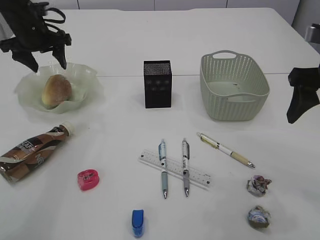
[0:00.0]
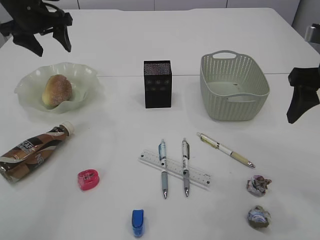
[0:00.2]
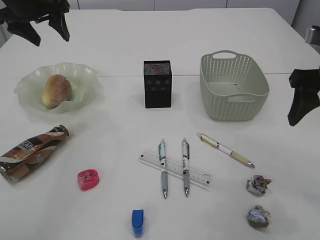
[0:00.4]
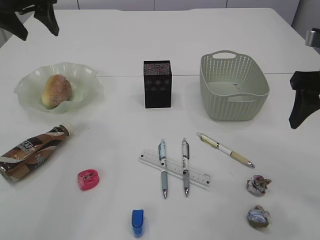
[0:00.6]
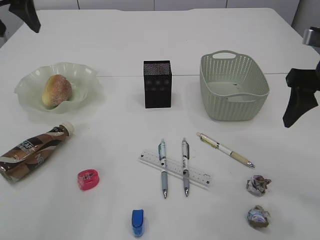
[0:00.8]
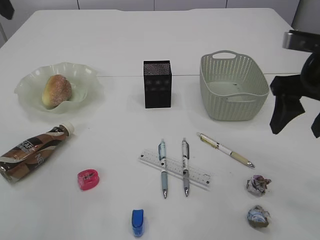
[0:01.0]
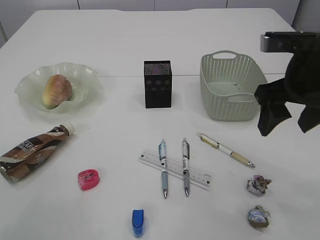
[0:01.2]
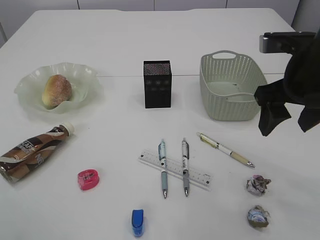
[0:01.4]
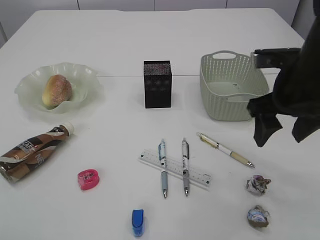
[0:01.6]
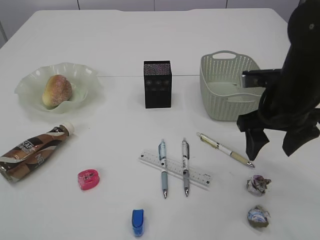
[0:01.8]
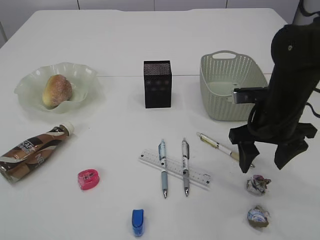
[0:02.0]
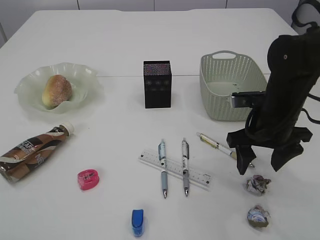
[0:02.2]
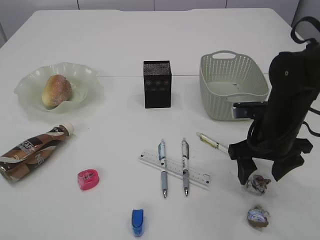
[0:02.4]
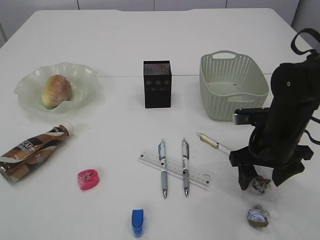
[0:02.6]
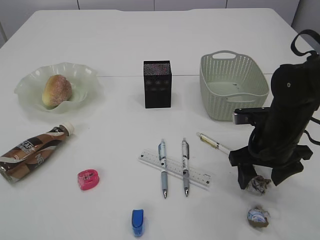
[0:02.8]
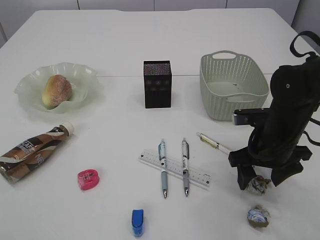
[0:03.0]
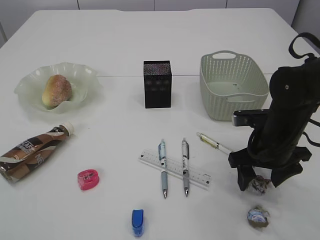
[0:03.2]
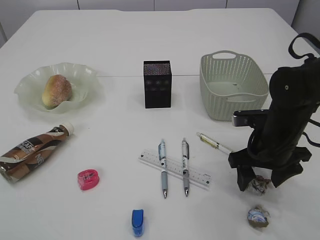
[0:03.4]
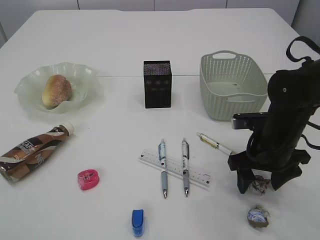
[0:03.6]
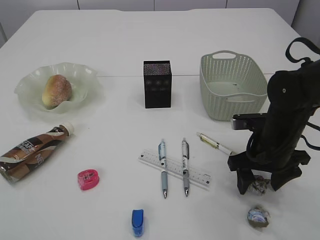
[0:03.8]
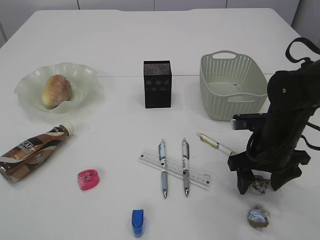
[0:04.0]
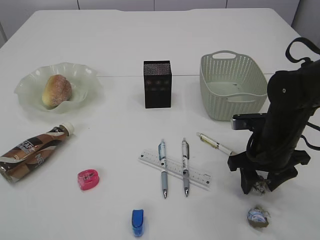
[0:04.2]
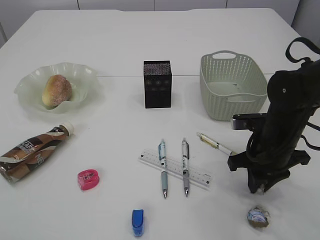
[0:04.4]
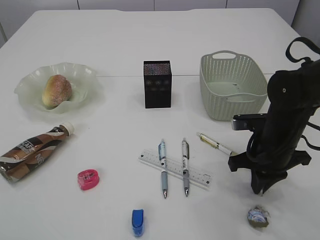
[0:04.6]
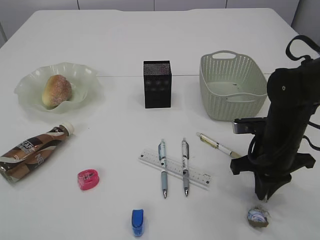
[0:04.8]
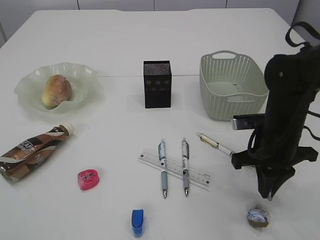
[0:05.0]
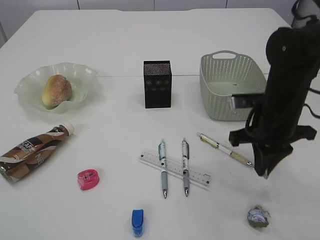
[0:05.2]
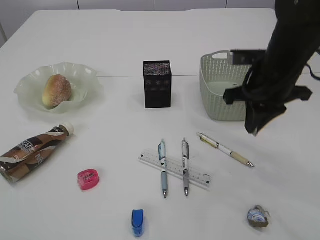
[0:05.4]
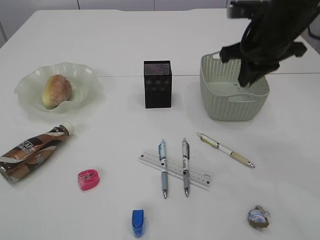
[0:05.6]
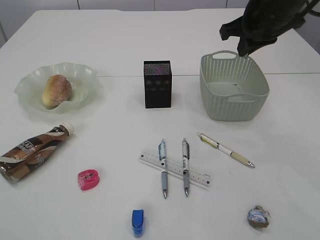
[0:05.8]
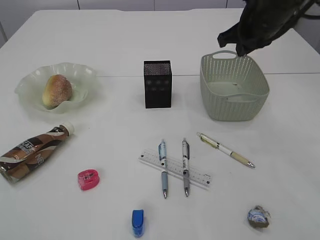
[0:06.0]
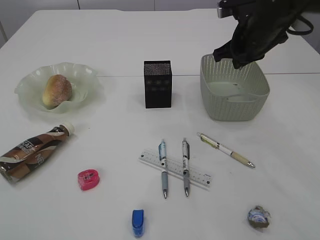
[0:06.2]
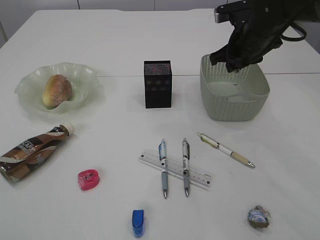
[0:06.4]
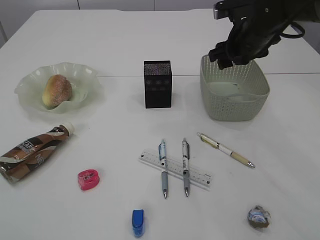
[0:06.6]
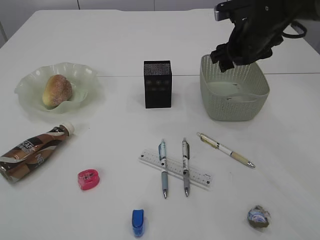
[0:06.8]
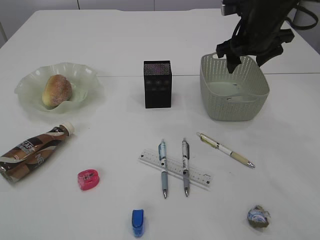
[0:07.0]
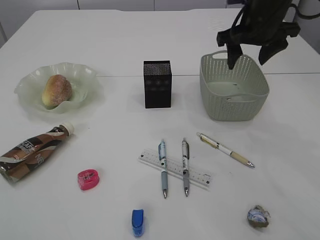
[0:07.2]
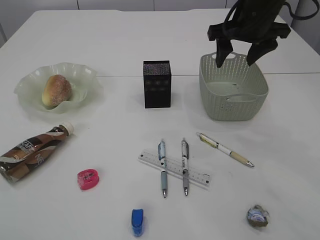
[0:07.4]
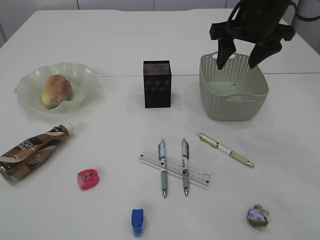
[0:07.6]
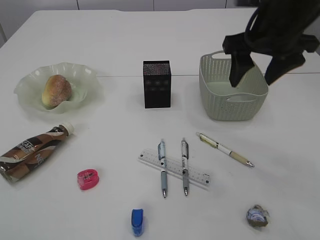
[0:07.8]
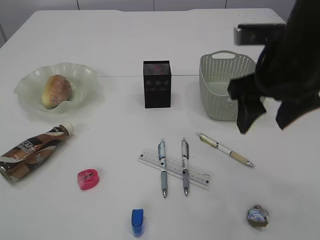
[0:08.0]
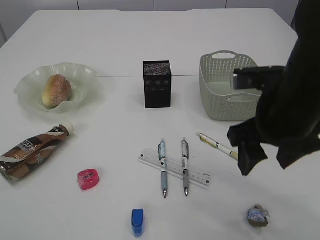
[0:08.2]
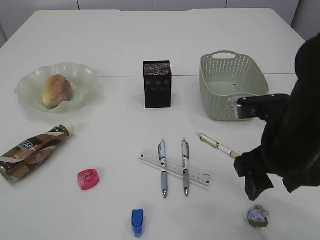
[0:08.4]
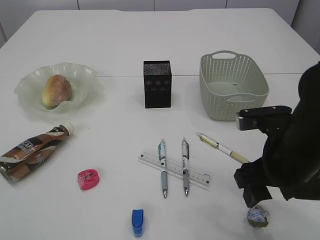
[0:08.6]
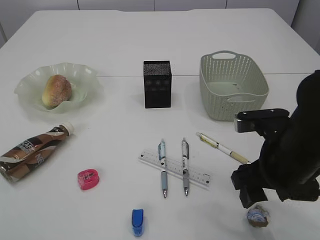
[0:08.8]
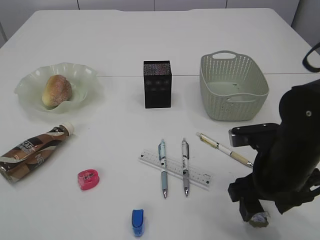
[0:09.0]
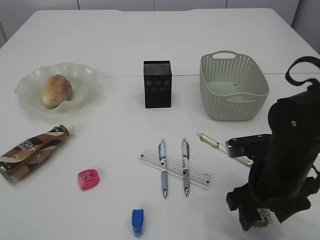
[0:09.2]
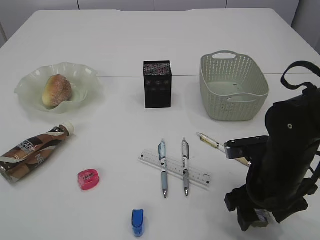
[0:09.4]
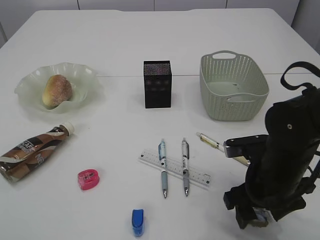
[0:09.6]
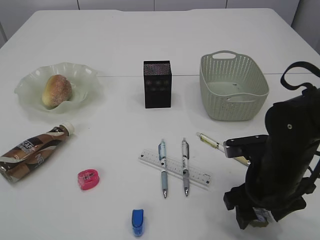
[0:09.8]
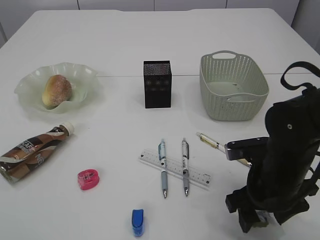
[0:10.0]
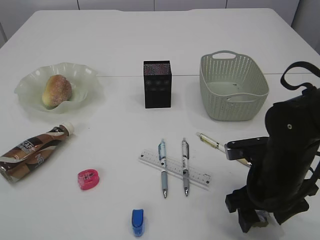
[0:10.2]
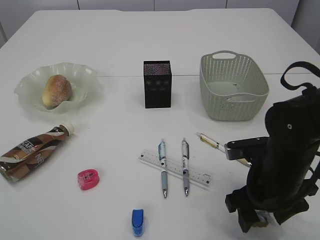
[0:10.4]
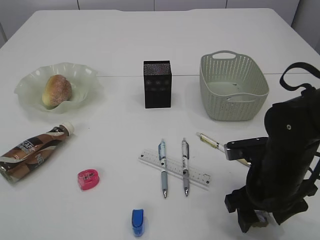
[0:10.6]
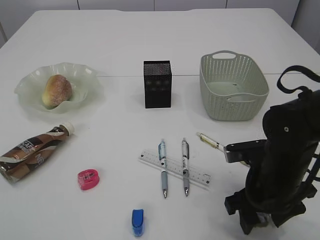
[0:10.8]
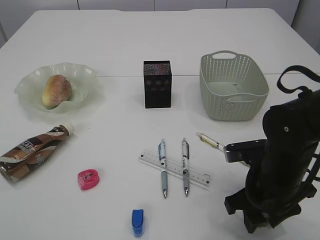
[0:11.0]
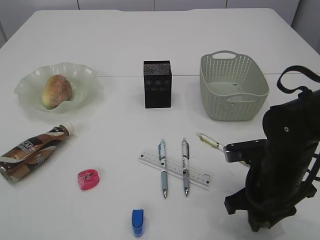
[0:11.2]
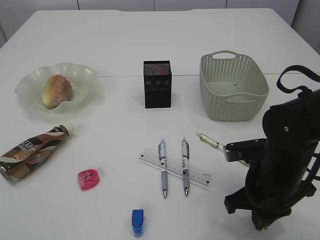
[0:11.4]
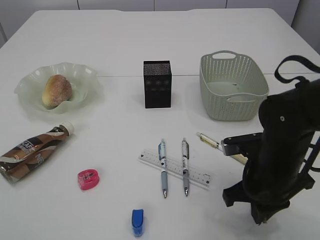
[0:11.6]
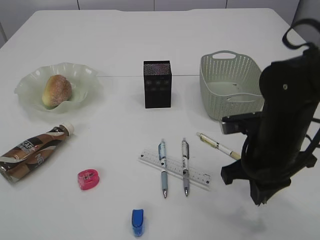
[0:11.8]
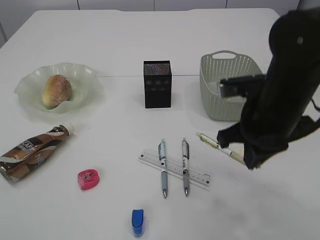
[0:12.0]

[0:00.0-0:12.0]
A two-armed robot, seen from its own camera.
Step, 0:00.8 to 0:05.0: Pick up the waste paper.
Step, 0:05.2 to 0:07.4: Place the waste paper in the basket.
Step, 0:07.6 to 0:11.8: Pick up the waste paper.
0:00.0 to 0:01.6: The right gripper heads to the left, covering approximately 5 cm. Meanwhile the left gripper is displaced backward and upward by approximately 40 cm.
0:01.6 to 0:03.0: The right gripper moves downward, about 10 cm.
0:03.0 to 0:04.4: The right gripper closes its fingers.
0:04.4 to 0:06.0: The right gripper travels upward and forward by approximately 20 cm, and closes up.
0:06.0 to 0:07.6: The right gripper opens.
0:07.6 to 0:09.0: The right gripper travels backward and downward by roughly 25 cm.
0:09.0 to 0:10.4: The grippers stay close to where they were, moving slightly.
0:10.4 to 0:12.0: The right gripper moves upward, approximately 10 cm, and closes.

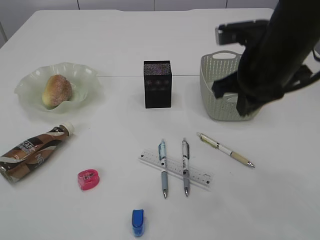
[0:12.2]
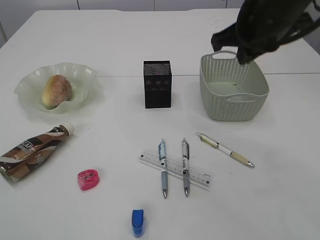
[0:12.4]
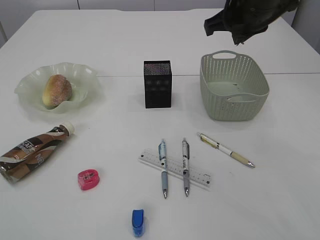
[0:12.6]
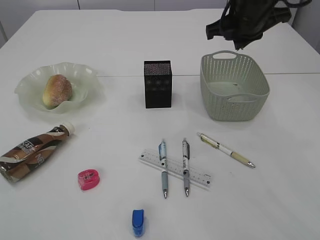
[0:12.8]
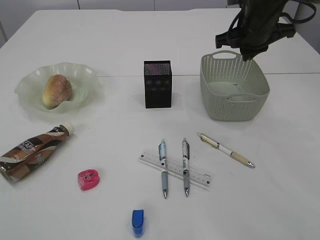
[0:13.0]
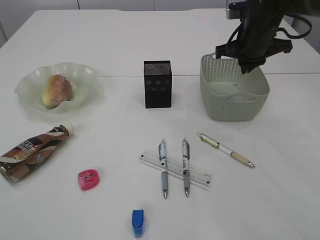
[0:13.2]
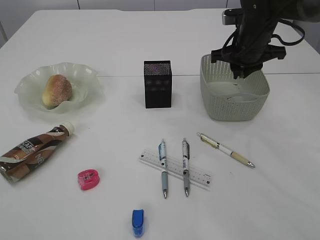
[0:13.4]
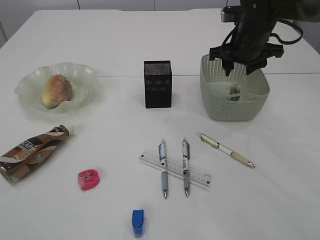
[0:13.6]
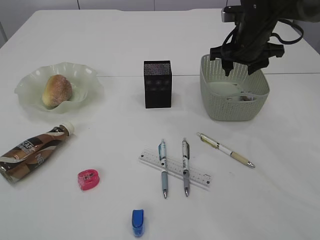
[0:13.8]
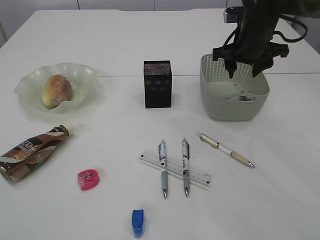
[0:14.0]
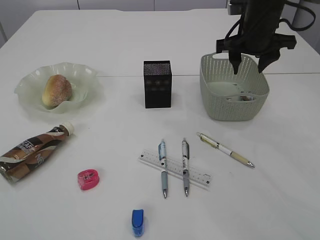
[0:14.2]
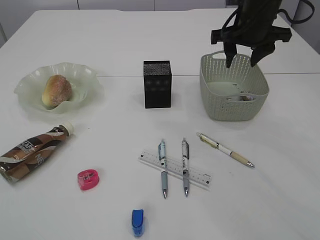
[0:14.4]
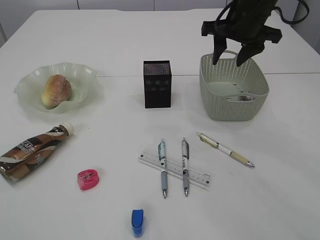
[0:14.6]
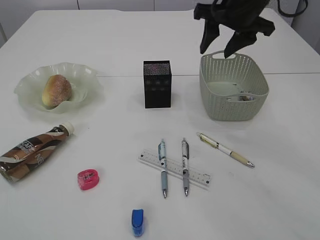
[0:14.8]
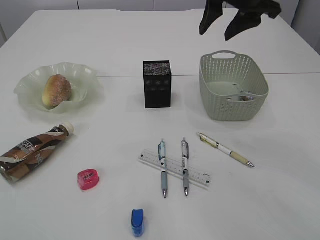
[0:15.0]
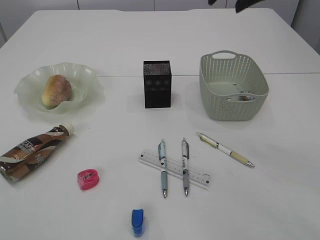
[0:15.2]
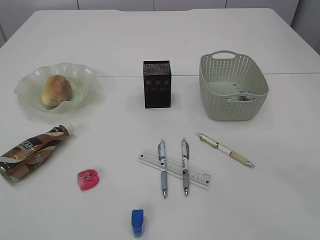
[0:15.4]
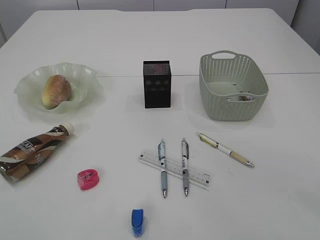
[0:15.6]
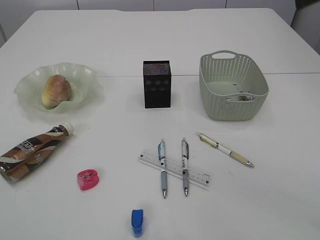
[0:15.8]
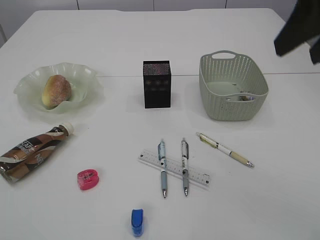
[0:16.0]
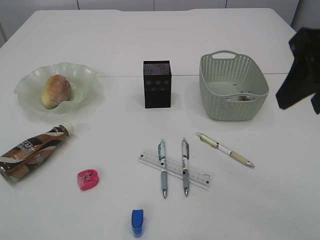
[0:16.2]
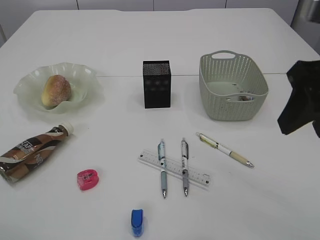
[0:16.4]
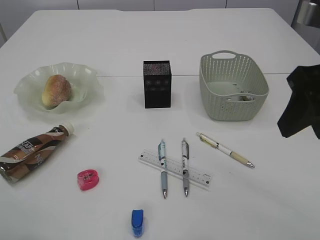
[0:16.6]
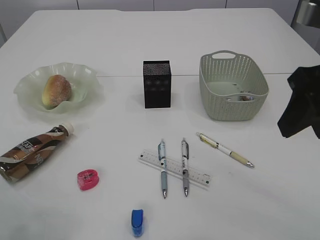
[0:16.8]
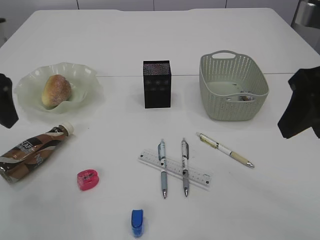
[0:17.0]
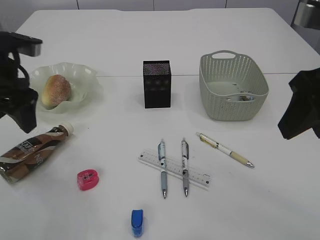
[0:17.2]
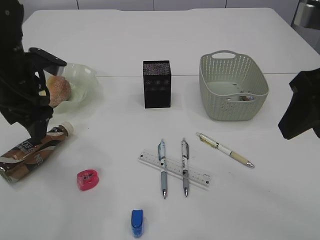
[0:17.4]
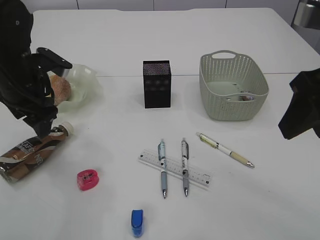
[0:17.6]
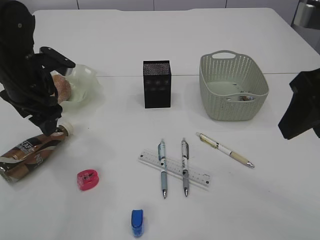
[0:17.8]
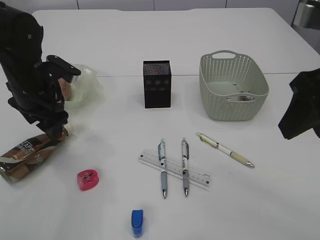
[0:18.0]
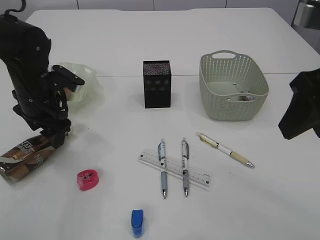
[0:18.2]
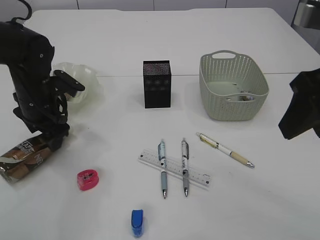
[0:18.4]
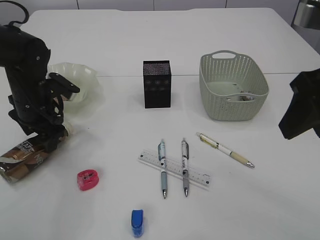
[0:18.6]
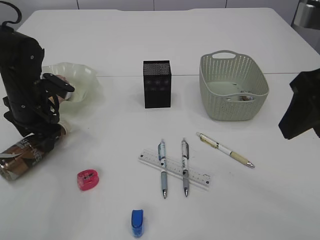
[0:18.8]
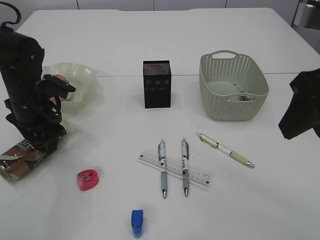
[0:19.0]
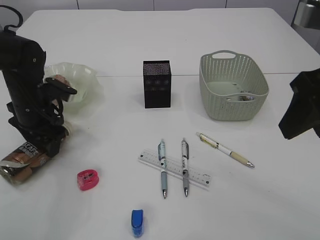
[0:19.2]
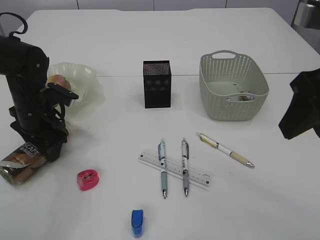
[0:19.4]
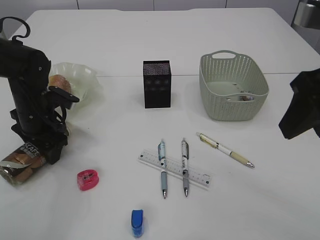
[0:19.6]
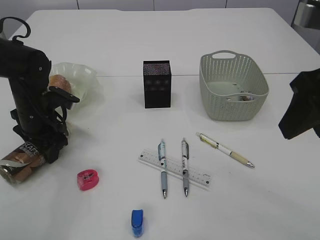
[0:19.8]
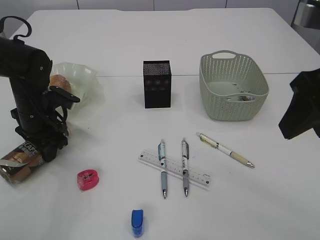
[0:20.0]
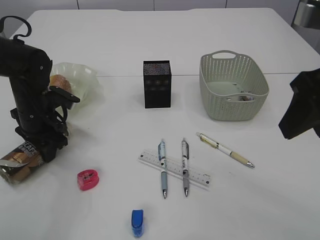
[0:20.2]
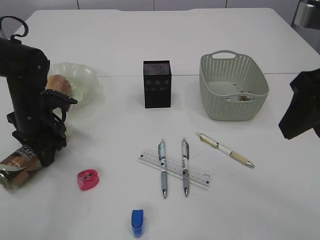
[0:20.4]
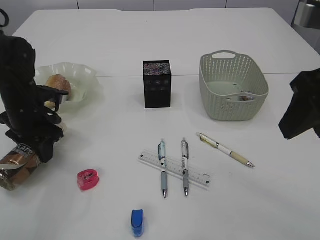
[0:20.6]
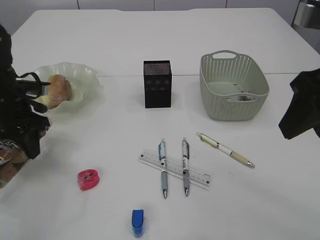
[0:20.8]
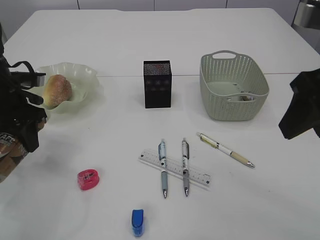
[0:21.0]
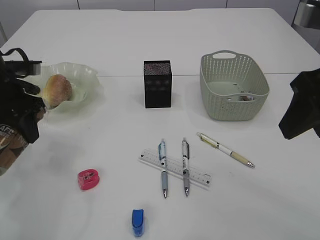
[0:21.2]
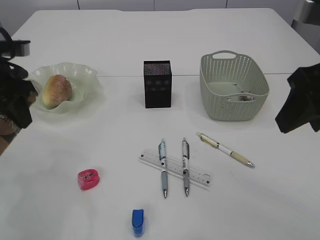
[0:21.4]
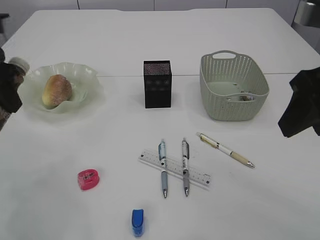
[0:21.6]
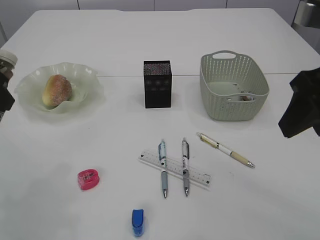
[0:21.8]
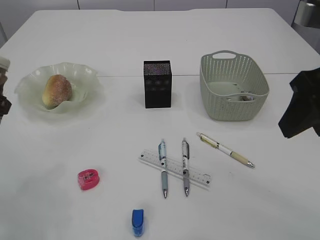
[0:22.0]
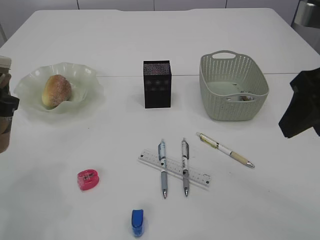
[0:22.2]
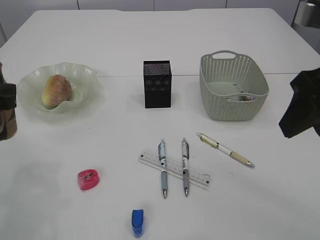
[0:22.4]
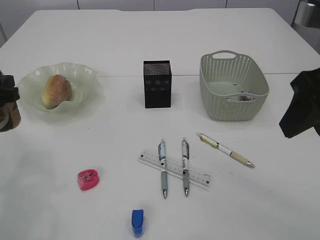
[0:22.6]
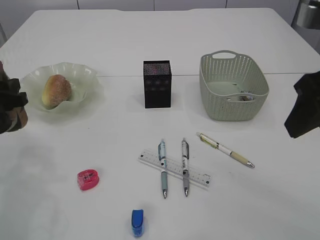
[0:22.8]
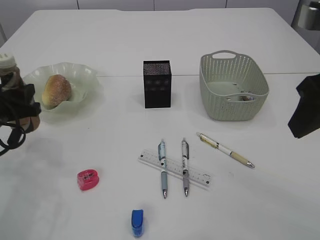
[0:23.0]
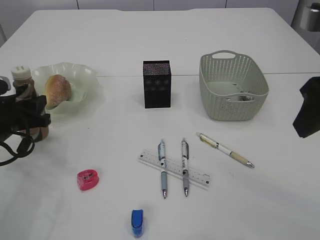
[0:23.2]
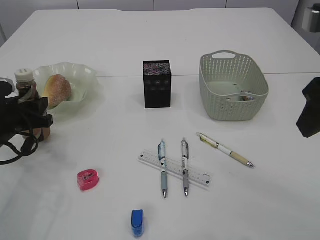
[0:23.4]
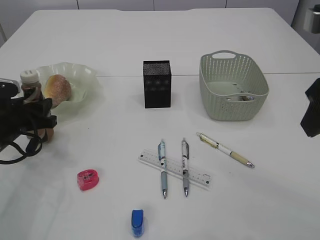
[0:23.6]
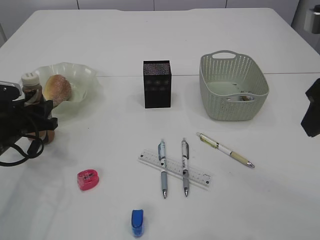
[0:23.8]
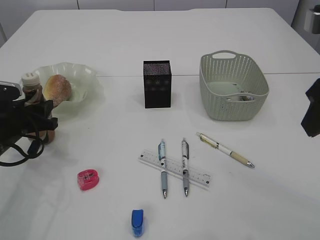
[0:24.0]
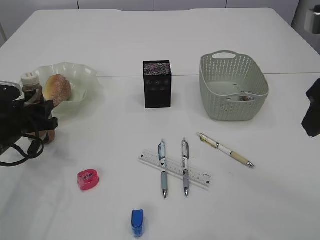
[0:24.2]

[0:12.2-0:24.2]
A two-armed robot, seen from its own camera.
Step, 0:12.2 to 0:14.0: Place the waste paper in the basket.
Step, 0:14.2 to 0:21.0: Pick up the bottle with the left arm.
0:12.2 to 0:13.8: The right gripper moves forward, roughly 15 cm, and opens its fingers.
0:13.8 to 0:15.2: The right gripper goes about 20 cm upward and backward.
0:15.2 to 0:16.6: The right gripper moves backward and downward, about 20 cm.
0:16.6 to 0:18.2: The left gripper goes some 25 cm forward and downward.
0:18.2 to 0:19.8: The left gripper travels downward by approximately 5 cm.
0:19.8 to 0:21.2: The left gripper shifts about 10 cm upward, and closes its fingers.
0:21.2 to 0:22.6: The left gripper heads backward, covering about 10 cm.
0:22.6 to 0:24.2: The left gripper goes approximately 10 cm downward.
